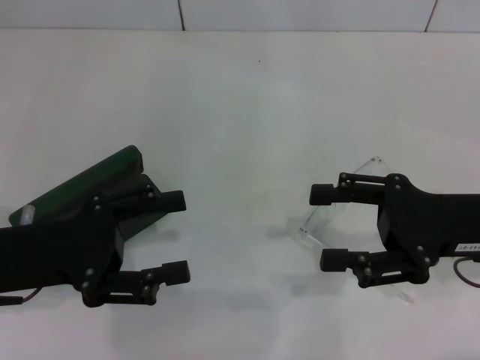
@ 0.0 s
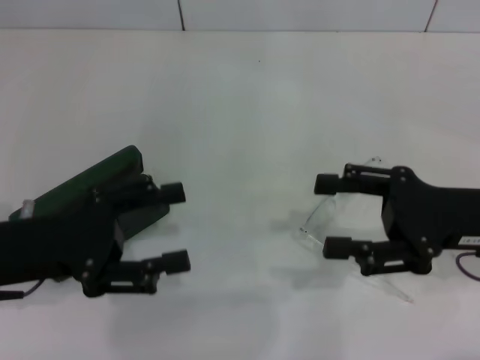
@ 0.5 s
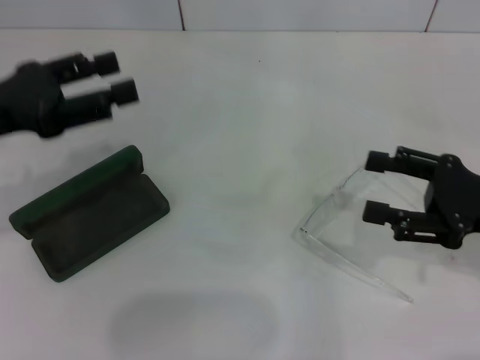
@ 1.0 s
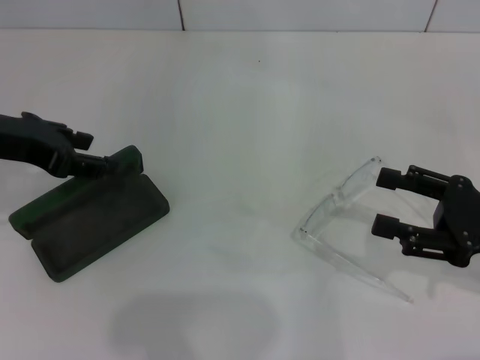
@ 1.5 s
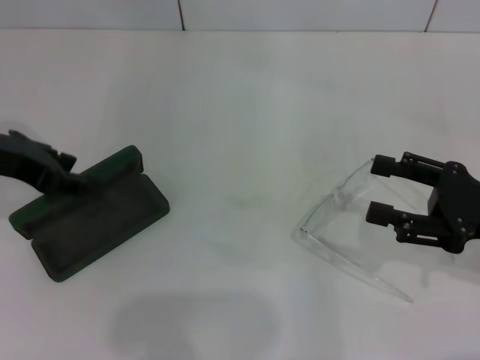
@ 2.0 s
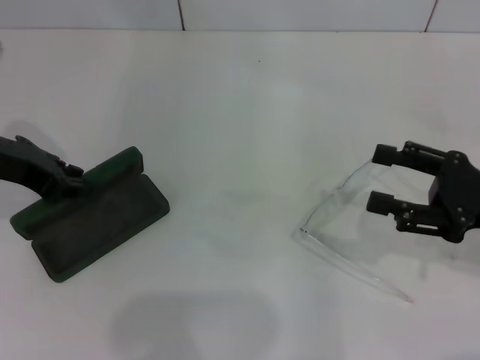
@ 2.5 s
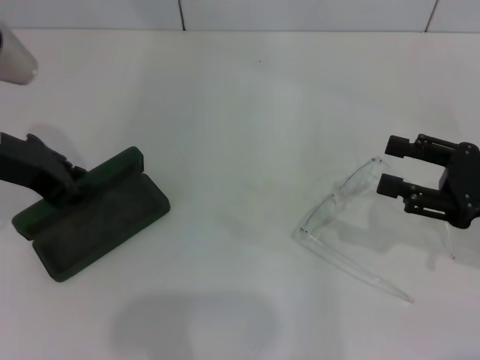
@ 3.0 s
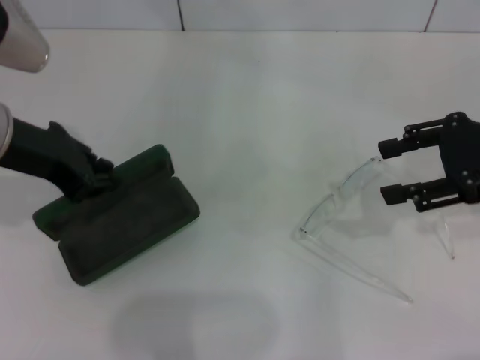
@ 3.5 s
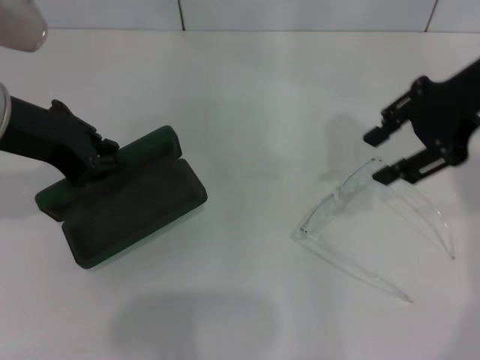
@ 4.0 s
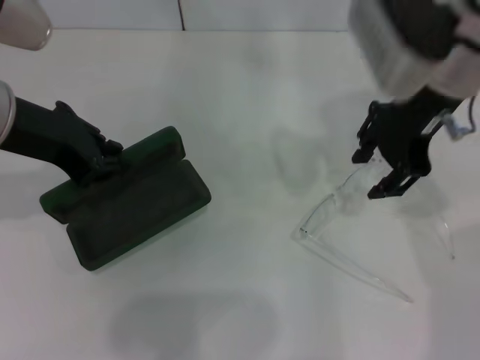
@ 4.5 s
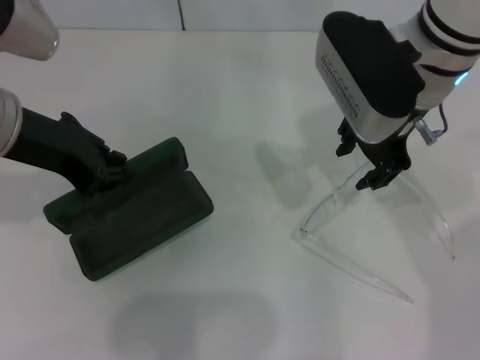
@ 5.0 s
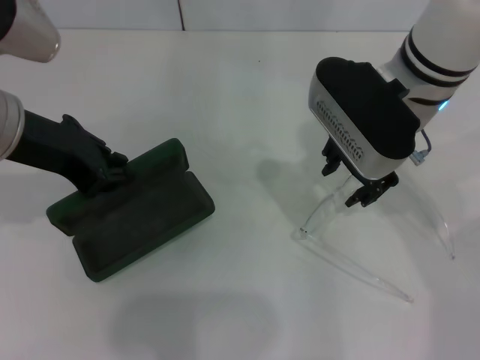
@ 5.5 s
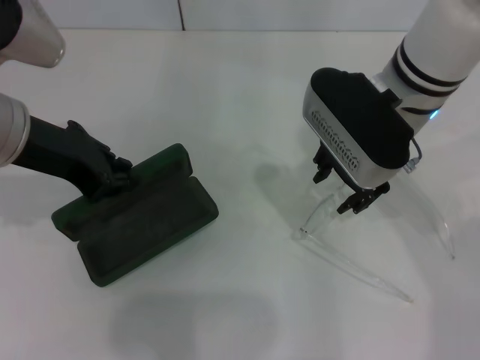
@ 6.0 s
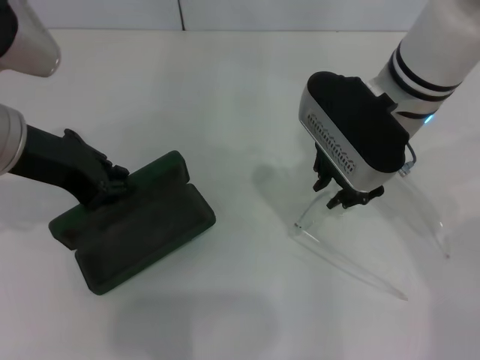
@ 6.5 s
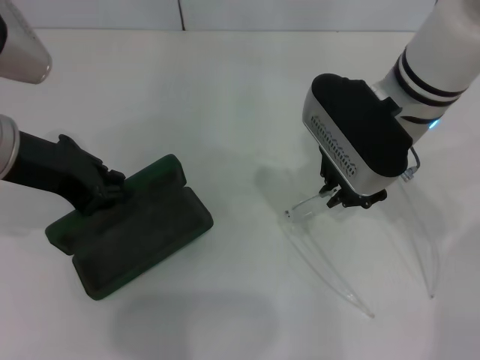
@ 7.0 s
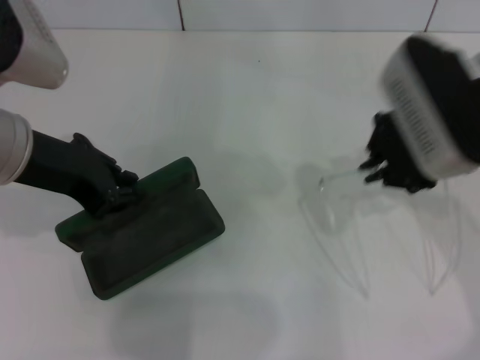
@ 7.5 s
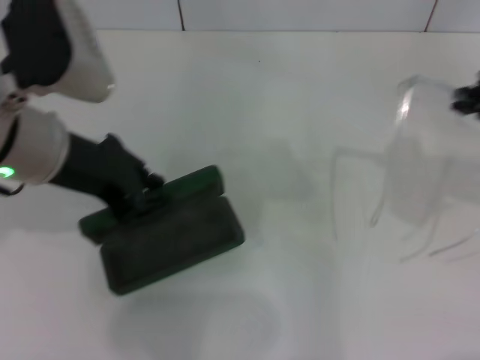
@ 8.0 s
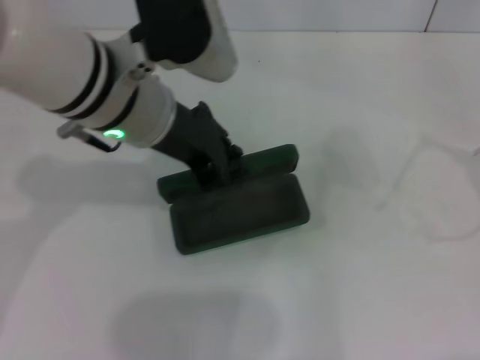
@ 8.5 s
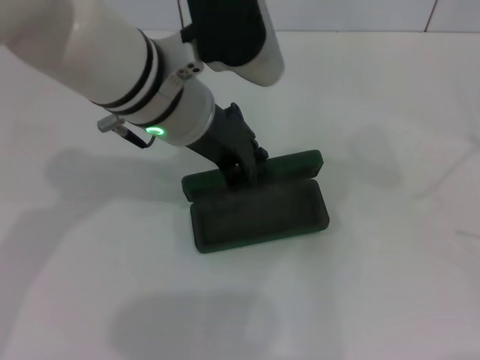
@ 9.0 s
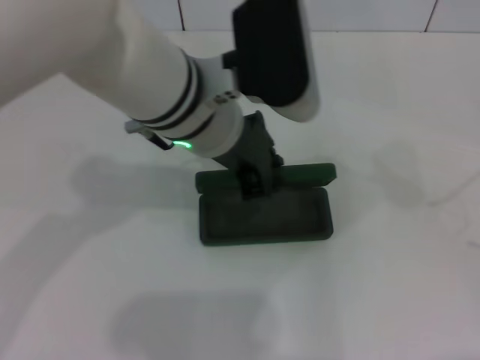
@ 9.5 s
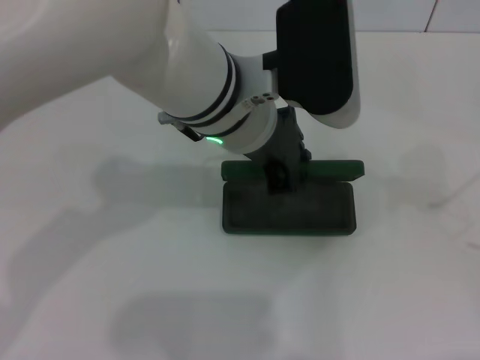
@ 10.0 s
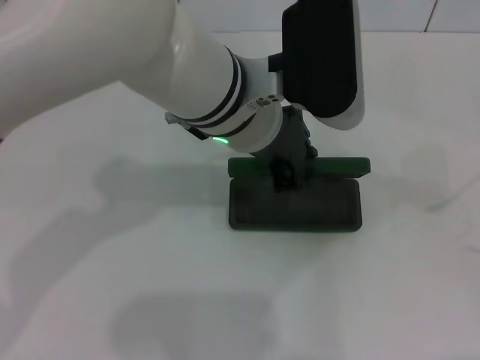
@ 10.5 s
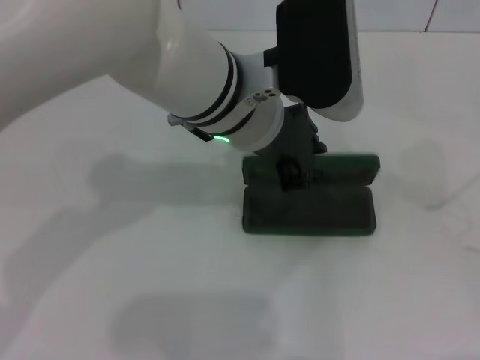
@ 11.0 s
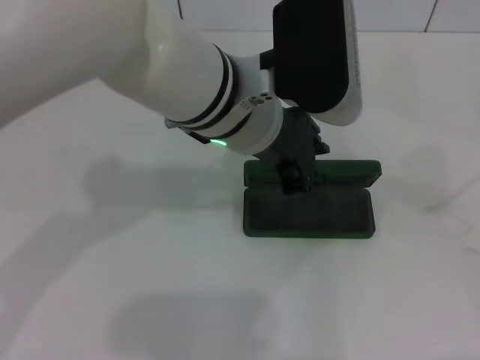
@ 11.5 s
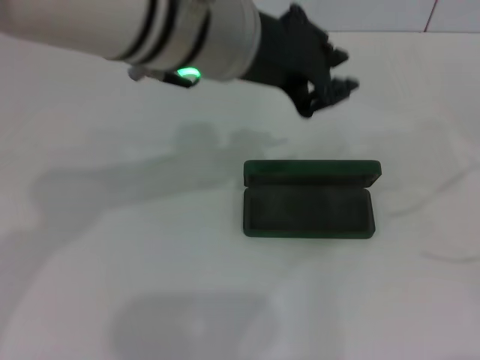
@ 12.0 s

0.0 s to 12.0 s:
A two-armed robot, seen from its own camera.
Step, 0.0 to 3.0 s: Grab the glasses case with your left hand.
Step, 3.5 to 6.5 s: Grab the eyeglass frame with your right hand.
Step, 7.0 to 11.5 s: Place the glasses case in the center of the table with your left hand.
0.0 to 2.0 s: The left gripper is displaced forward and upward by approximately 10 cm, while the right gripper ends up approximately 5 cm from where it was.
2.0 to 4.0 s: The left gripper travels to the right by roughly 5 cm, and closes. Meanwhile the right gripper shifts approximately 20 cm upward, forward and to the left.
4.0 to 6.0 s: The right gripper goes about 15 cm to the left and downward.
6.0 to 8.0 s: The right gripper moves to the right, upward and backward, about 20 cm, and closes.
8.0 to 10.0 s: The right gripper travels to the right and backward by some 20 cm; the left gripper shifts some 15 cm to the right.
10.0 to 12.0 s: The left gripper shifts some 5 cm upward.

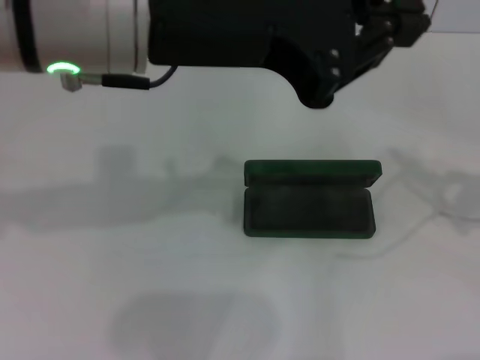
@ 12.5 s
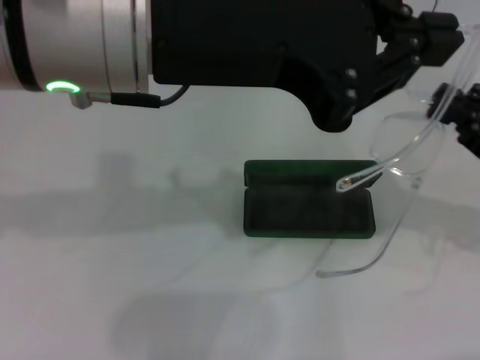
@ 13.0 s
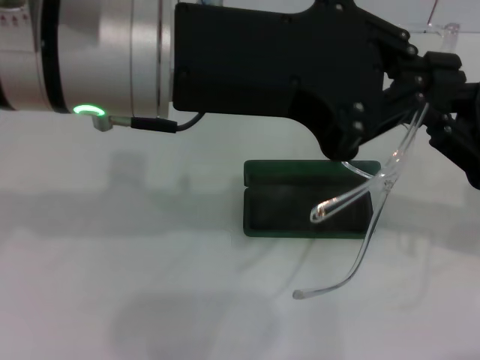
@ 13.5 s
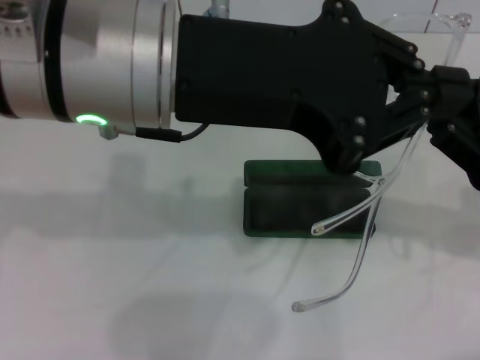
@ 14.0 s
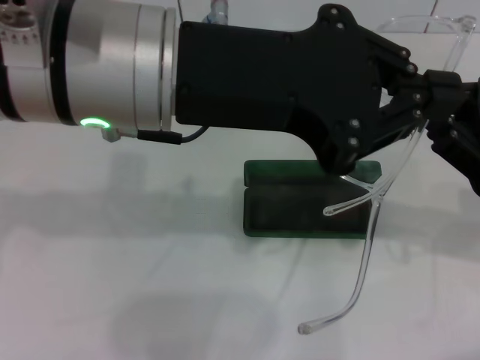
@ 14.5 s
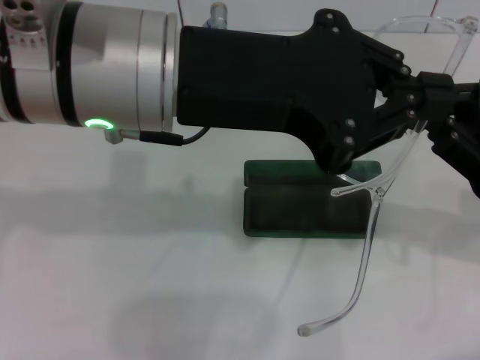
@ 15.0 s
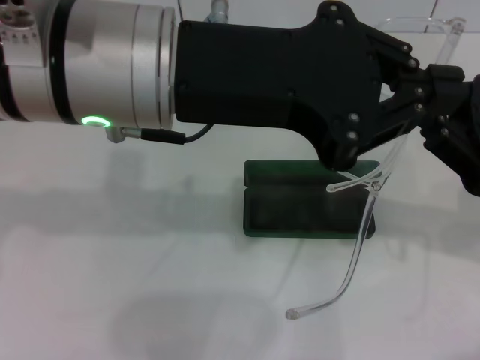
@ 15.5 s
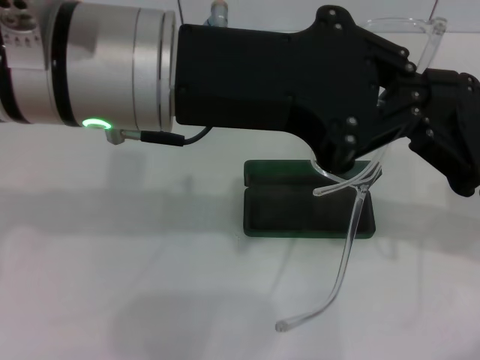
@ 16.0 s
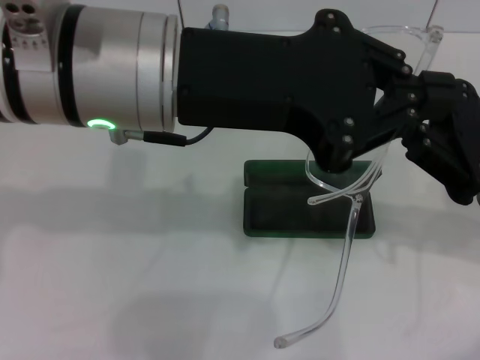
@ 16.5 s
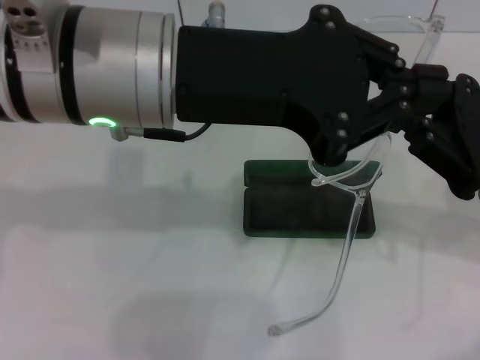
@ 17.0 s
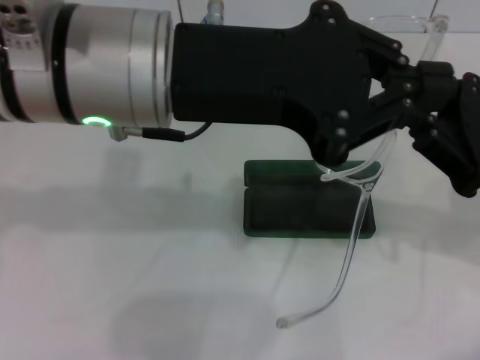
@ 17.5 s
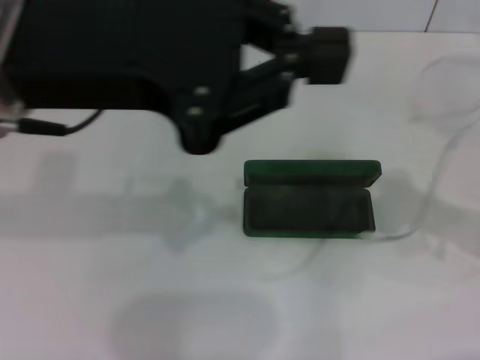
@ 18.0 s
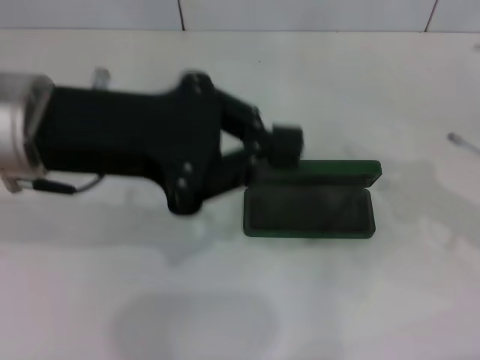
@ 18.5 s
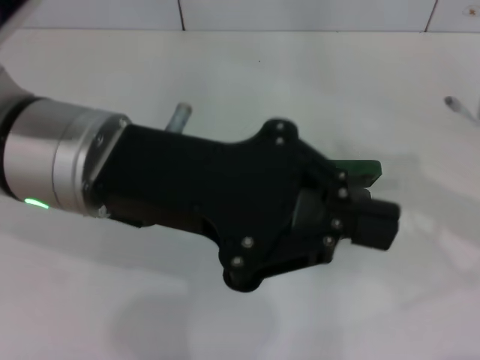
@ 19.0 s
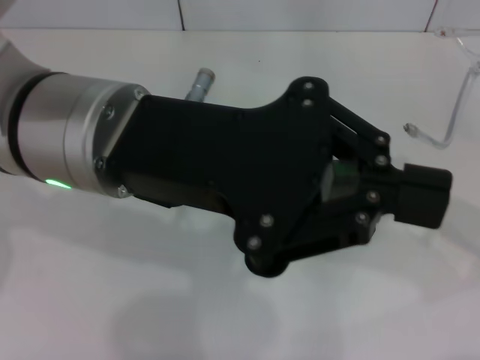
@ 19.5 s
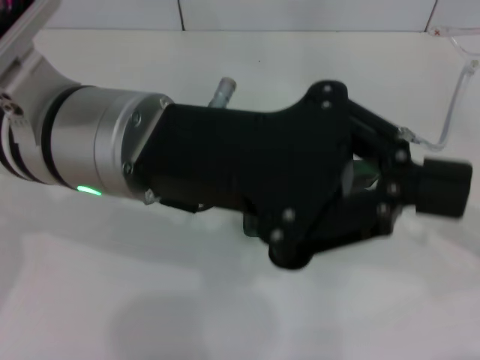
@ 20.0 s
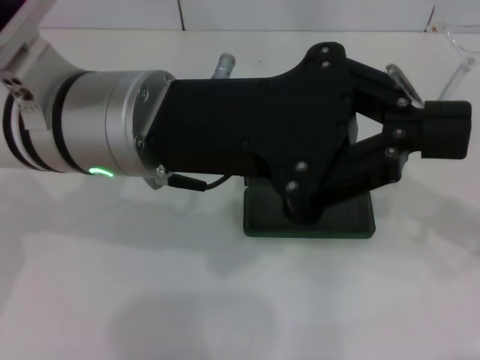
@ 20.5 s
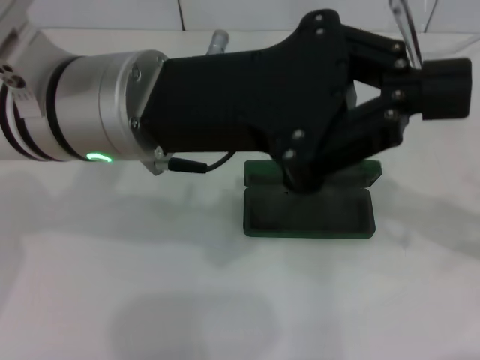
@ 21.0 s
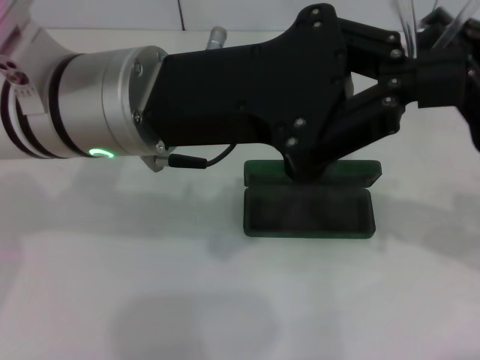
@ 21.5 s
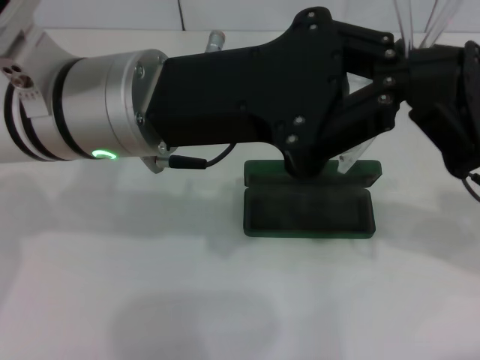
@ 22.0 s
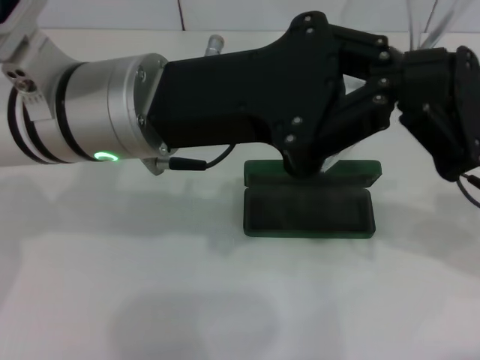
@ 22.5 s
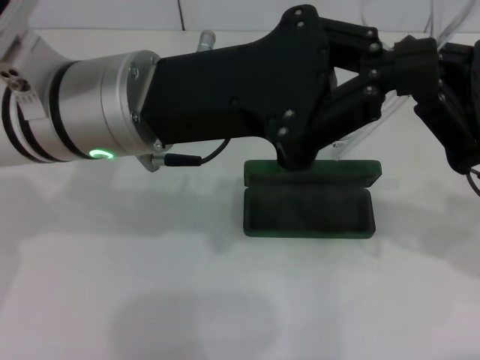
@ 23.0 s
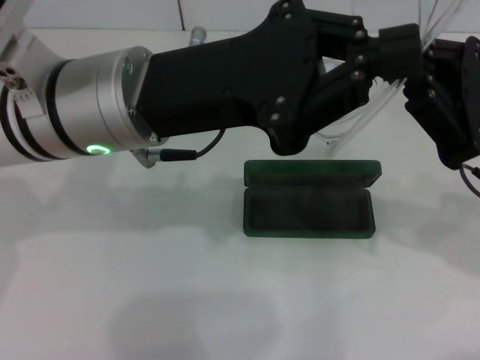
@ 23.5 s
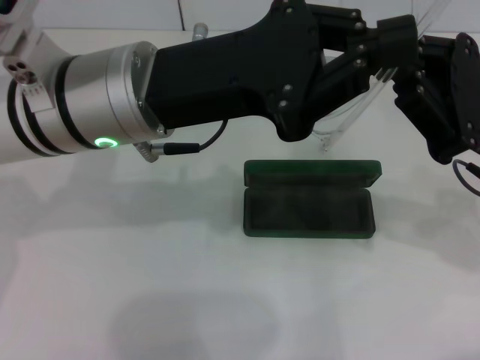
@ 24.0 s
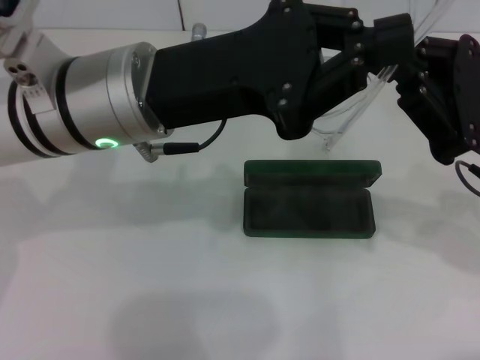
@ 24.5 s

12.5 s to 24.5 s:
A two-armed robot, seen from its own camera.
12.5 to 14.5 s: The right gripper goes roughly 15 cm to the left and forward.
14.5 to 16.5 s: The grippers move only a little.
16.5 to 18.5 s: The right gripper goes about 5 cm to the right; the left gripper shifts roughly 10 cm to the left.
18.5 to 20.5 s: The left gripper moves to the right, roughly 5 cm.
20.5 to 22.5 s: The right gripper goes about 5 cm to the left.
22.5 to 24.5 s: There are only small adjustments of the grippers.

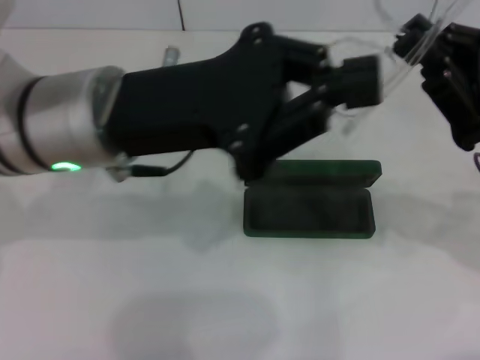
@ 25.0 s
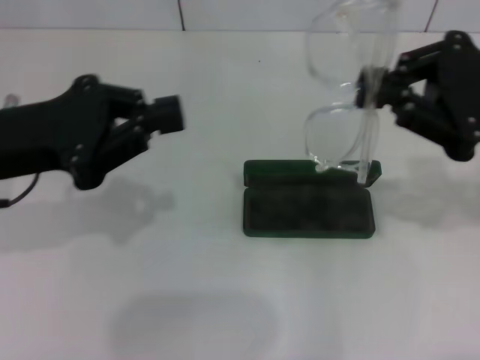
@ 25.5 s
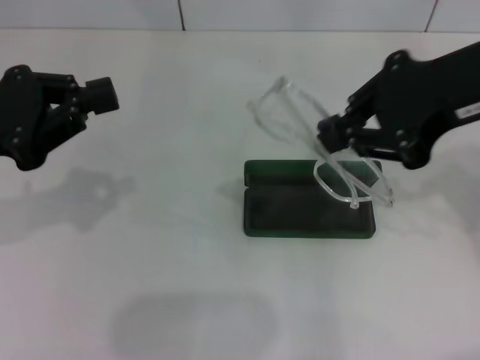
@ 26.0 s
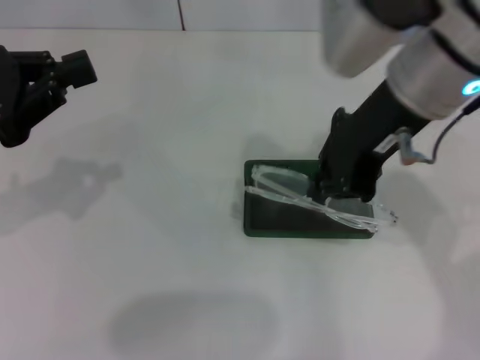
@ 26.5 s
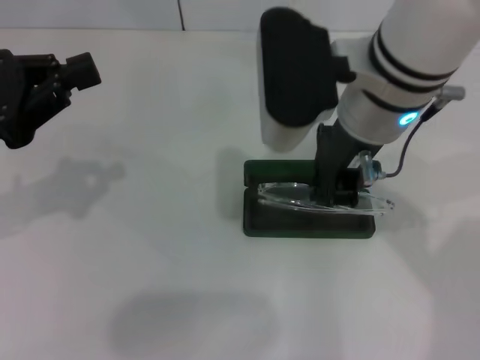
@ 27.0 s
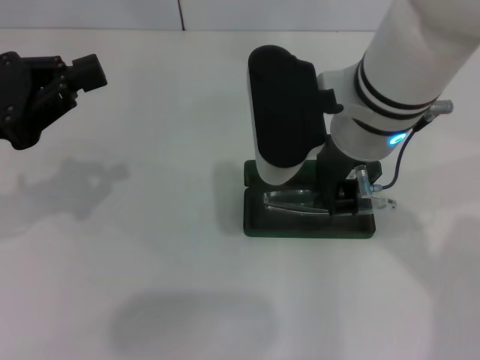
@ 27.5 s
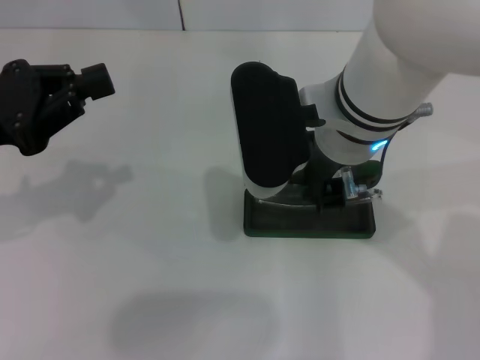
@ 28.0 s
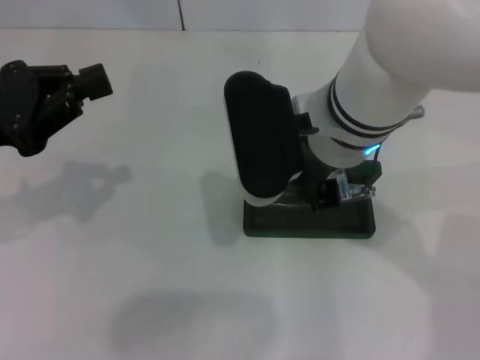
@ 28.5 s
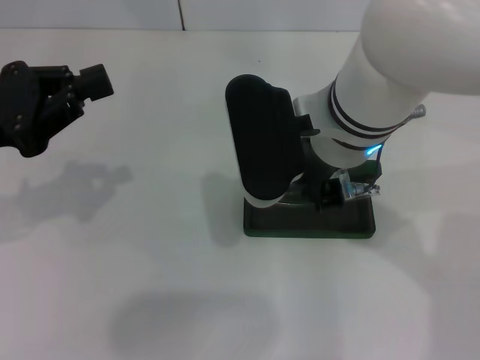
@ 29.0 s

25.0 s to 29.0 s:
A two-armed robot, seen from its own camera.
25.0 to 27.0 s: The right gripper goes roughly 20 cm to the left and upward. Meanwhile the left gripper travels to the left by about 15 cm.
27.0 to 29.0 s: The grippers move only a little.
